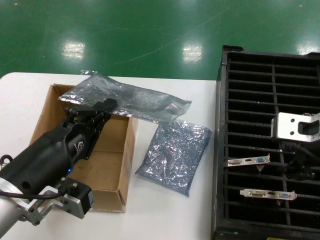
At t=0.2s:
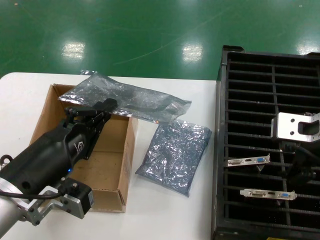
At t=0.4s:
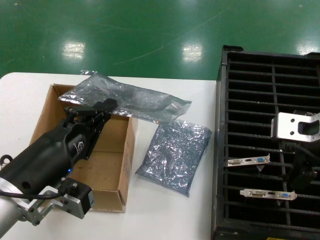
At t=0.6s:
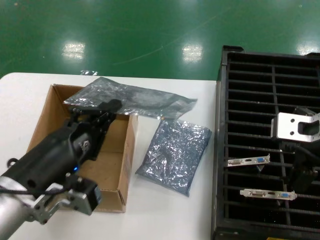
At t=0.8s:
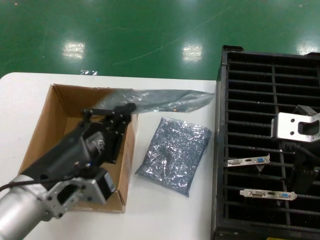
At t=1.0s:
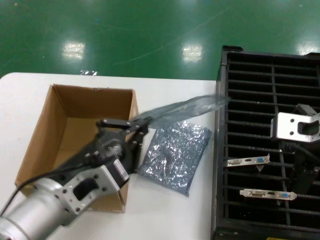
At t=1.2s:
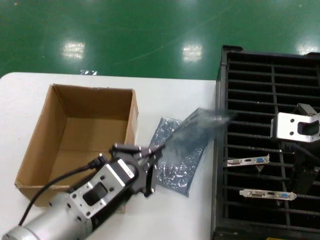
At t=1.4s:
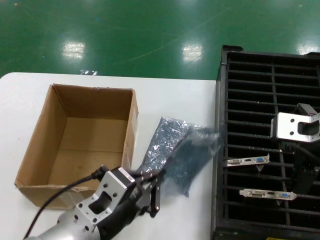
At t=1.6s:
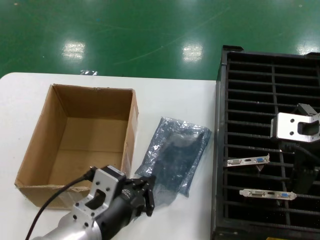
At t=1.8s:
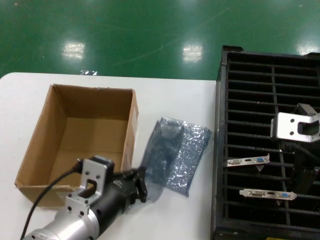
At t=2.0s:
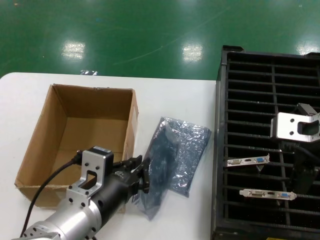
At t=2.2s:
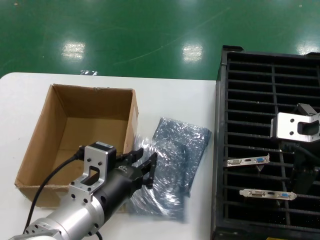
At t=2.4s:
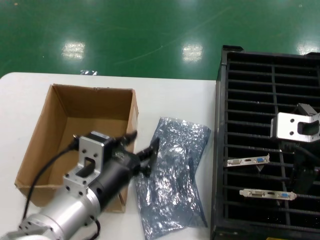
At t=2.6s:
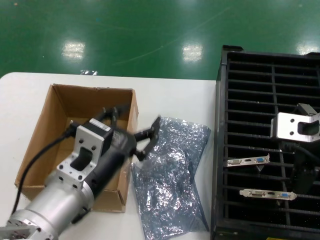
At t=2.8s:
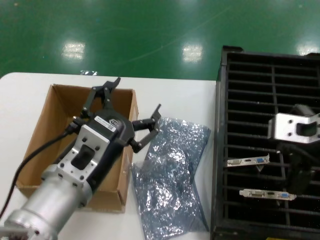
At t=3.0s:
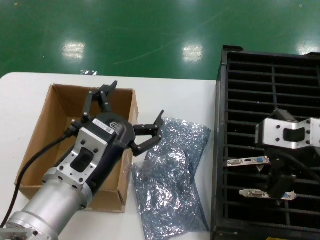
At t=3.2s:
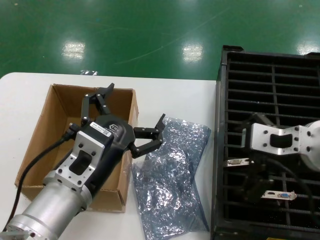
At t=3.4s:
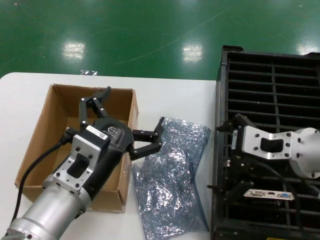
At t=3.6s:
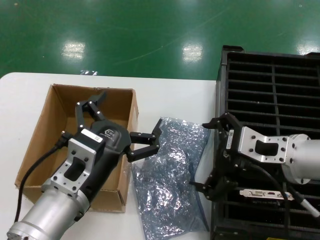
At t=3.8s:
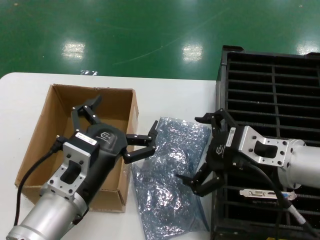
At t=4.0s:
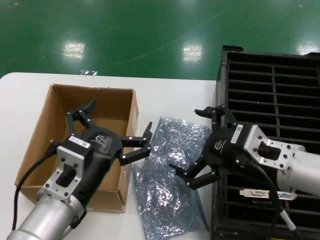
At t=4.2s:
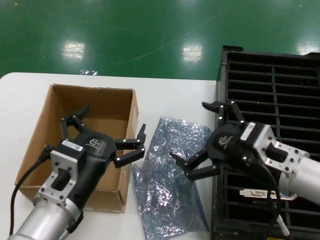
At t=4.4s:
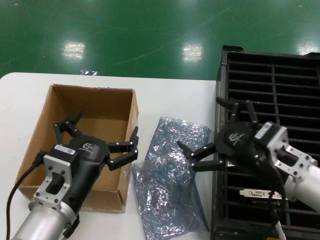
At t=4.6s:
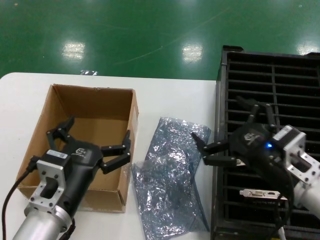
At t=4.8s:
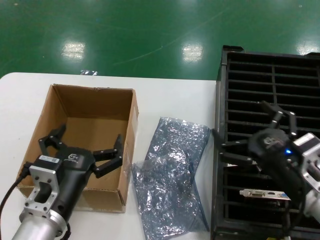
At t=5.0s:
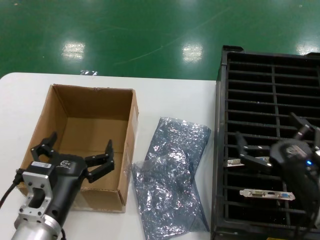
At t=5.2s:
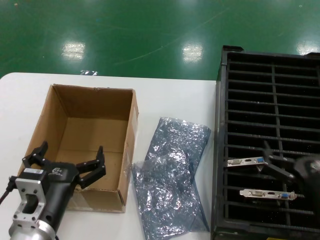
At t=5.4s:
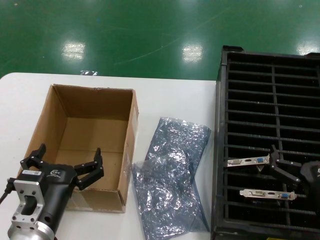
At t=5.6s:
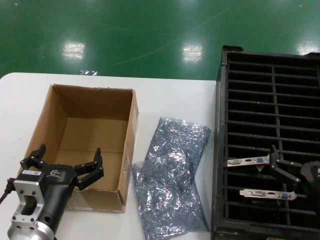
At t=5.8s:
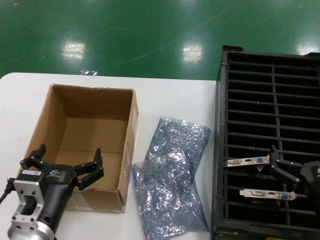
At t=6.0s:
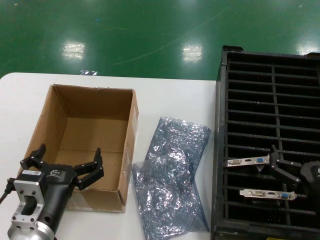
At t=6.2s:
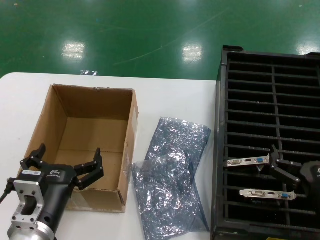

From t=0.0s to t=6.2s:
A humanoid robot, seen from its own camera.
Task of the whole recording: take out graphics card from box remove packaging put into black container.
Step, from t=0.0s to t=2.0s: Place the down the bag.
From t=0.0s to t=1.6s: The left hand goes about 10 cm to the right.
From t=3.2s to t=4.6s: The left hand shifts roughly 5 cm downward, while the right hand shifts about 15 cm downward.
From t=4.6s to t=6.2s: The right hand goes some 10 cm downward and to the right, while the left hand moves approximately 5 cm.
